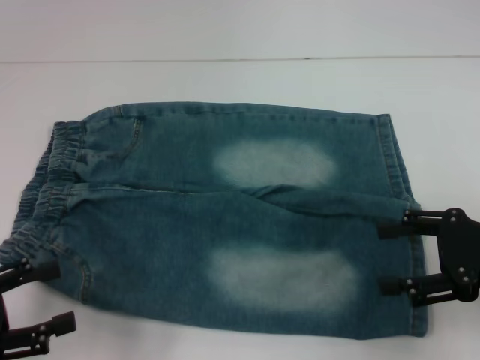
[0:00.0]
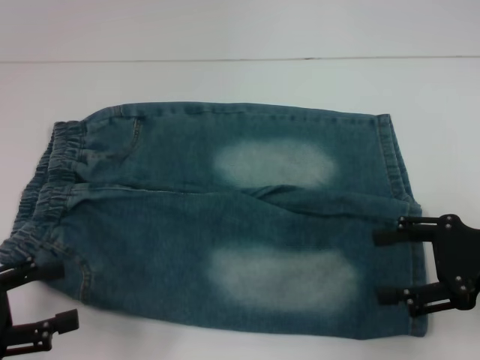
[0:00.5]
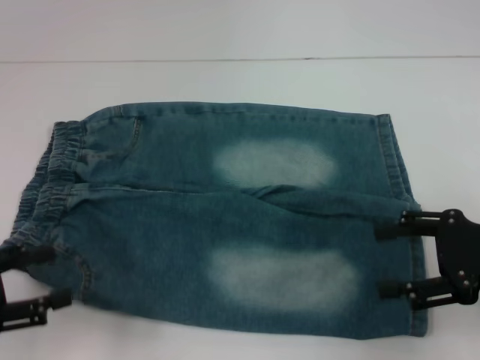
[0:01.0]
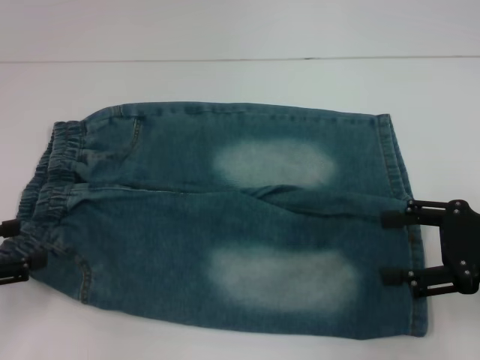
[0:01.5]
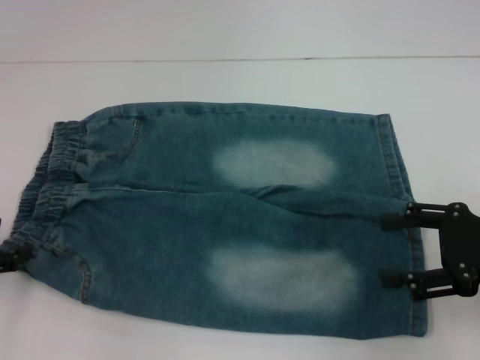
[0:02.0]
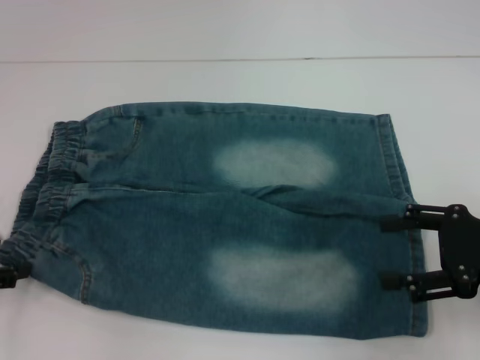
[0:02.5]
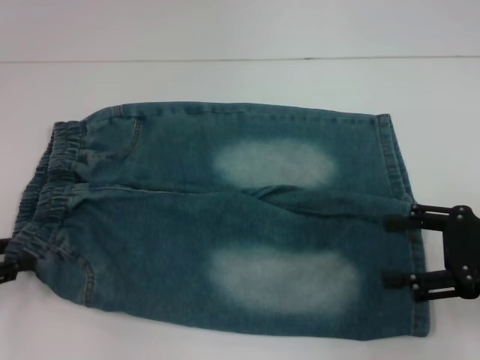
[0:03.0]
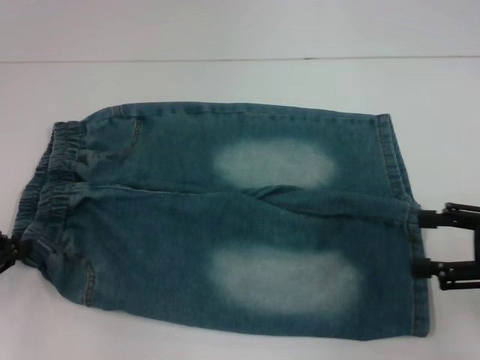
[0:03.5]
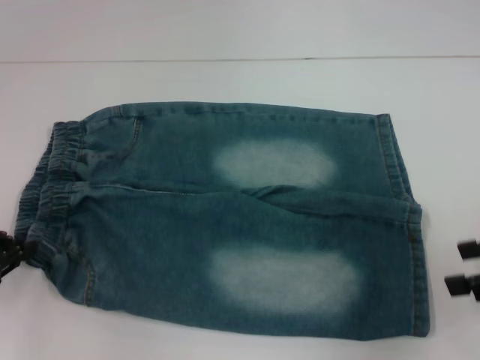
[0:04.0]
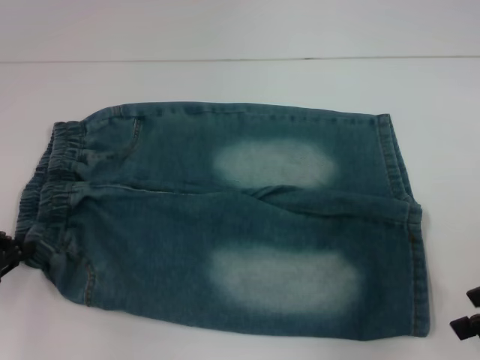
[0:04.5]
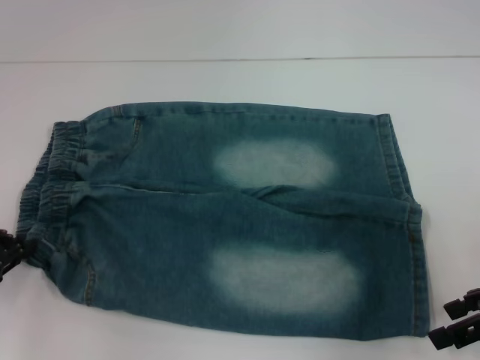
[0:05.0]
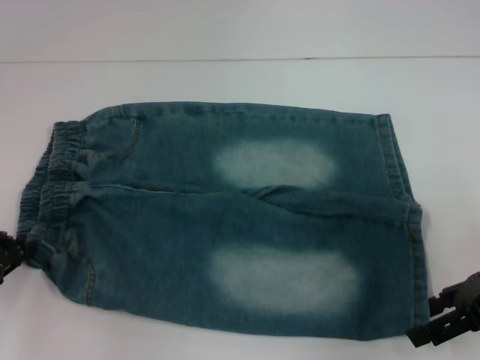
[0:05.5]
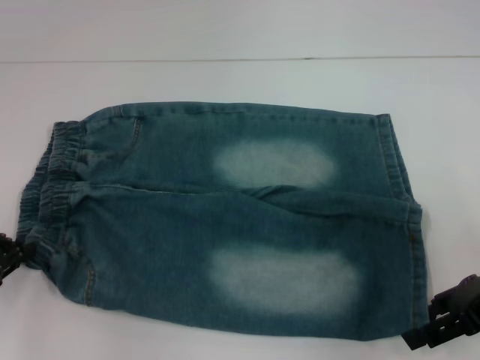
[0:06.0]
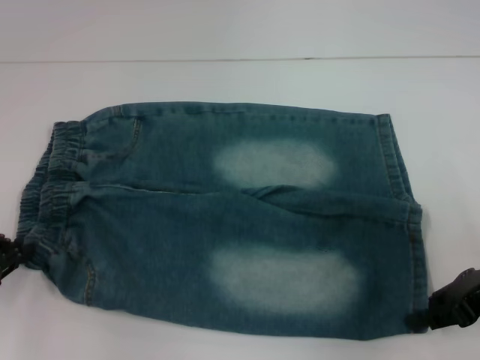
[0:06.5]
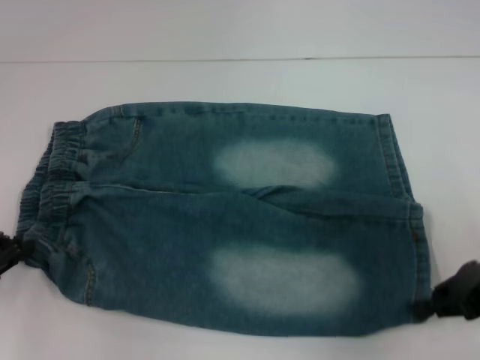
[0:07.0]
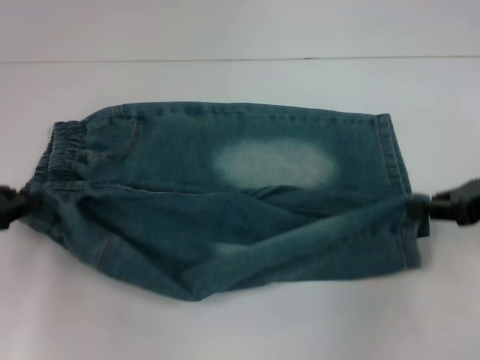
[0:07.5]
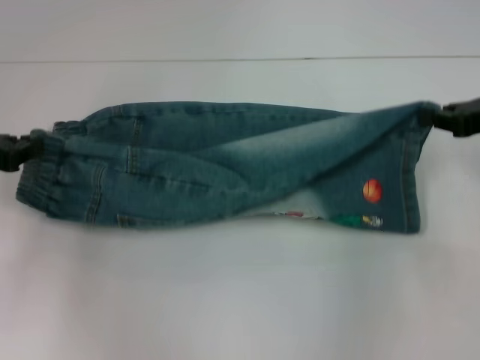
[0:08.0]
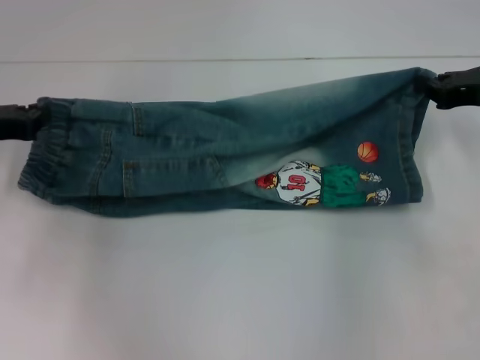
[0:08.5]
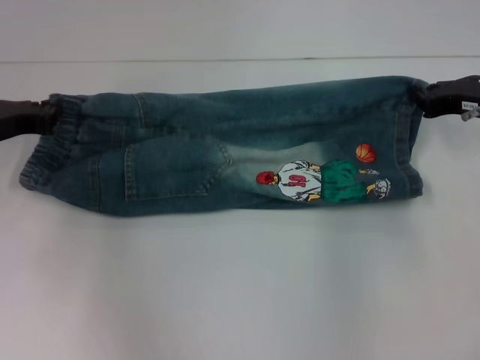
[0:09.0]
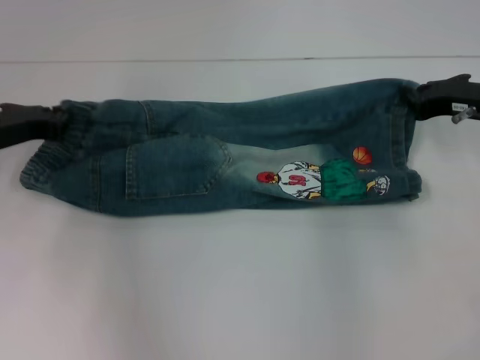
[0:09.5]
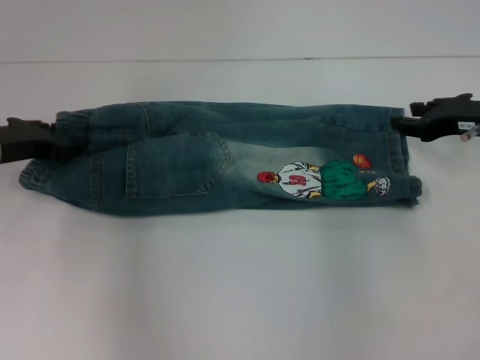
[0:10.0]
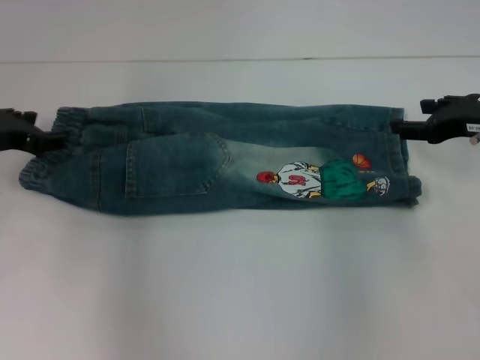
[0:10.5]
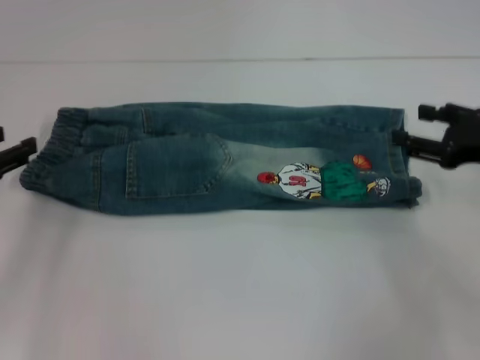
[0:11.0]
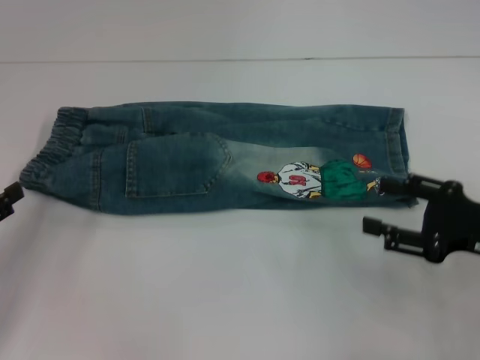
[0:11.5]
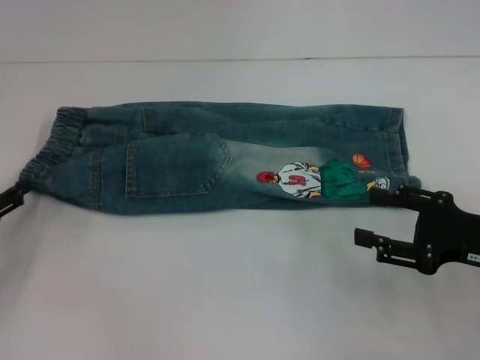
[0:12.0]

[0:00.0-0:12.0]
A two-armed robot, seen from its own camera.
Step, 0:00.0 to 0:03.5: Hold the lower left waistband with your left hand.
Step, 0:04.0 to 0:06.5: Grab the lower right pant leg with your right hand.
Step, 0:07.0 to 0:09.5: Fold upward with your right hand.
0:00.0 to 0:02.0: The left gripper travels forward by roughly 5 cm.
0:02.0 to 0:04.0: The left gripper closes. Meanwhile the right gripper changes place by roughly 5 cm.
0:04.0 to 0:06.0: The right gripper changes place by about 5 cm.
0:06.0 to 0:08.0: The right gripper travels forward by approximately 10 cm, and closes, while the left gripper moves forward and upward, about 10 cm.
0:08.0 to 0:10.0: The left gripper ends up roughly 5 cm from where it was, while the right gripper shifts by approximately 5 cm.
0:10.0 to 0:12.0: The right gripper travels backward by about 15 cm, and opens its fingers; the left gripper heads backward, to the left and downward, covering about 15 cm, and opens.

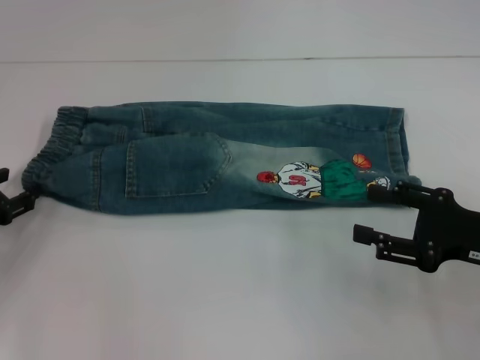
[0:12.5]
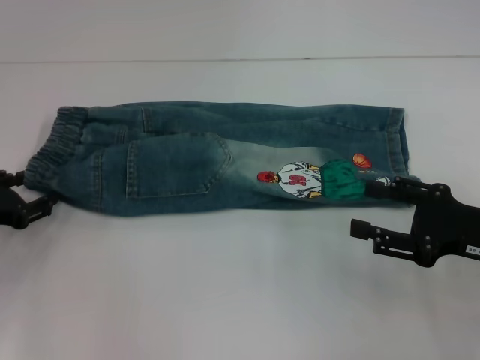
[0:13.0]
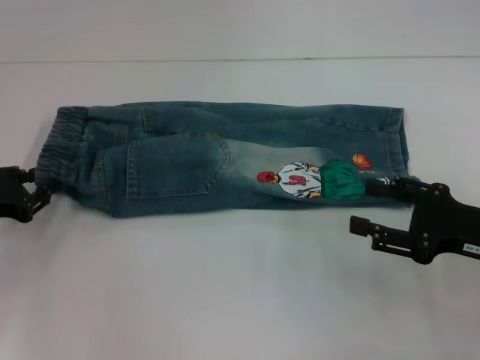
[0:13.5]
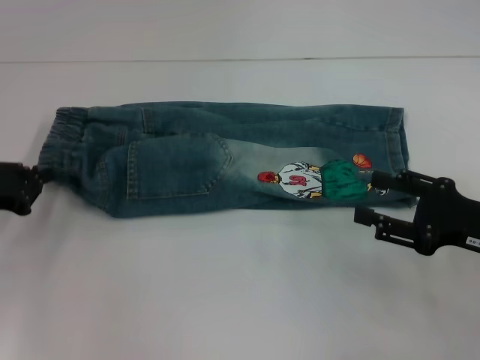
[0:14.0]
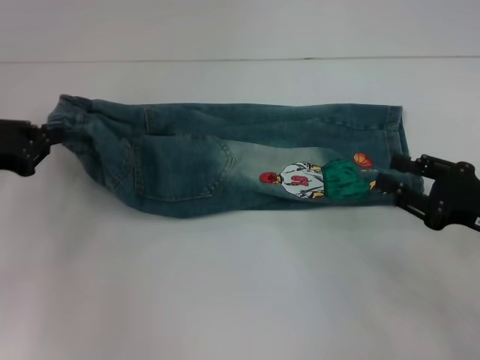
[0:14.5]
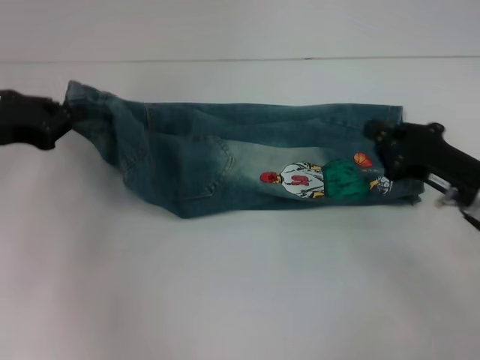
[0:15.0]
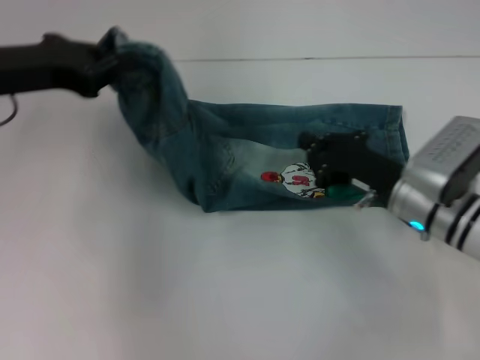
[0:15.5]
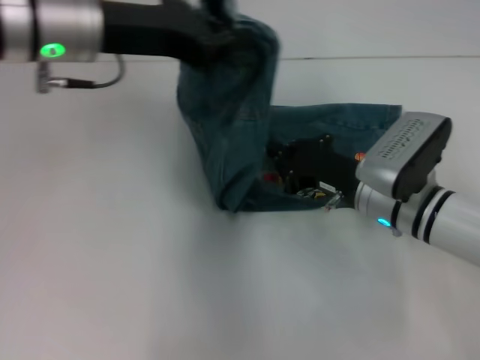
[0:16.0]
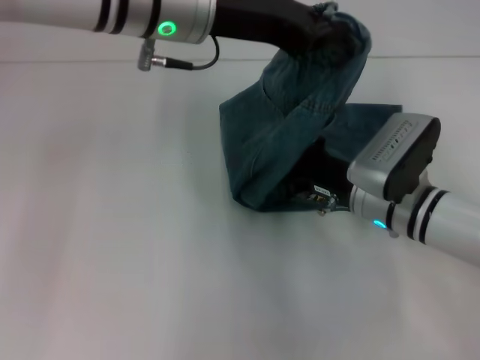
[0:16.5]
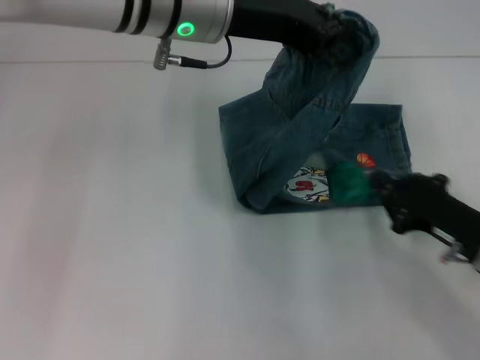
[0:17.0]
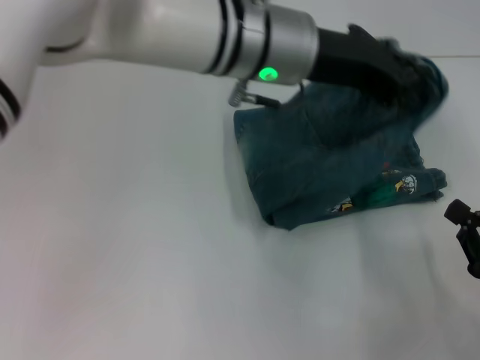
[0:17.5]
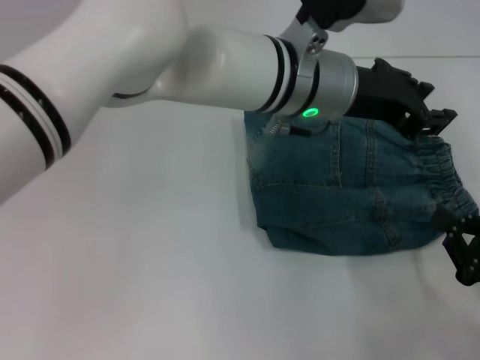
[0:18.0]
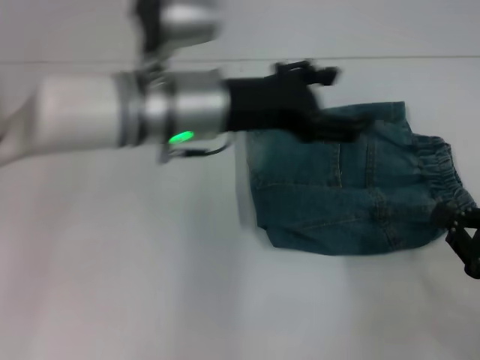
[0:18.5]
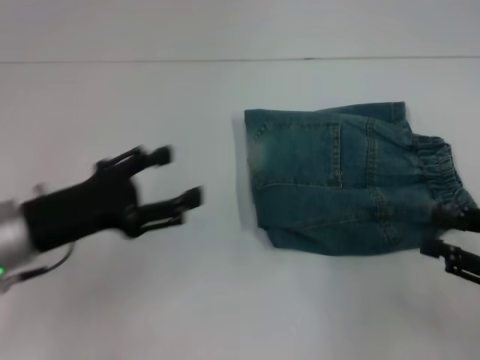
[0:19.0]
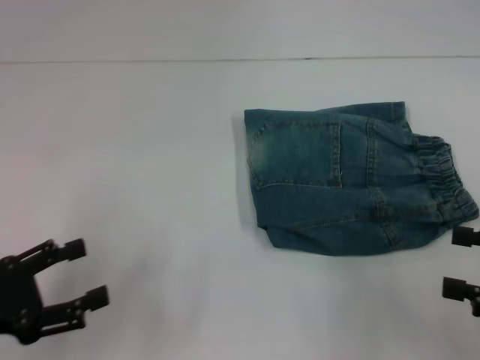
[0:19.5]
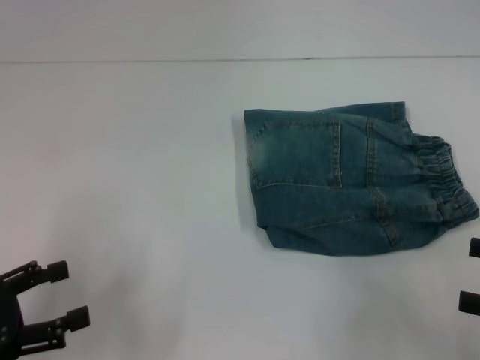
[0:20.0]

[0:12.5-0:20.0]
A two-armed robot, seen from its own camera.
Step, 0:14.5 to 0:16.0: Press the middle of the pants with your right hand.
Step, 0:17.0 to 0:17.5: Fold to the right with your left hand.
0:12.5 to 0:14.5: The left gripper moves upward, about 10 cm, and closes its fingers.
0:14.5 to 0:16.5: The right gripper moves to the left and forward, approximately 15 cm, and closes. The left gripper goes about 25 cm to the right and upward.
0:16.5 to 0:18.0: The right gripper heads to the right and backward, covering about 20 cm, while the left gripper goes some 15 cm to the right and downward.
0:18.0 to 0:20.0: The left gripper travels to the left and backward by about 40 cm, and opens its fingers. The right gripper heads upward, covering about 10 cm, and opens its fingers.

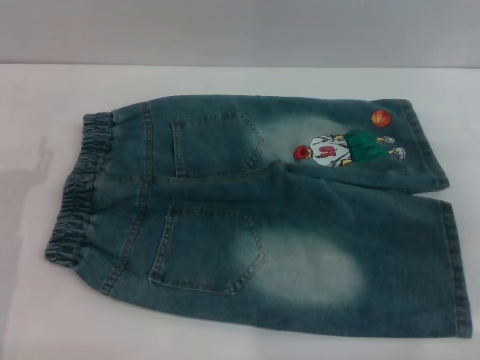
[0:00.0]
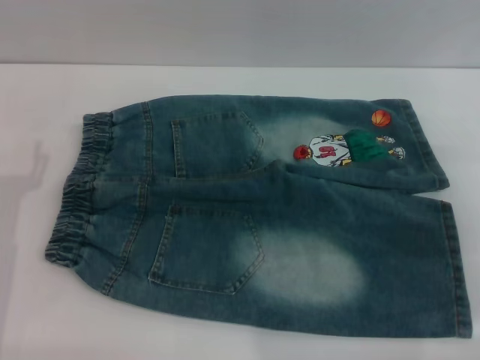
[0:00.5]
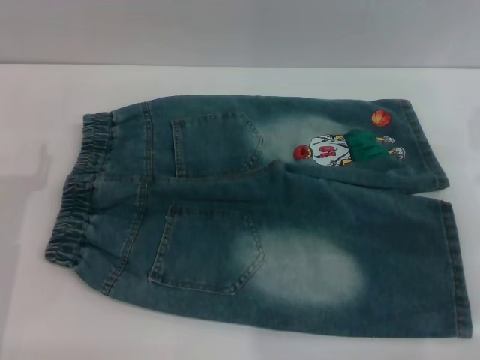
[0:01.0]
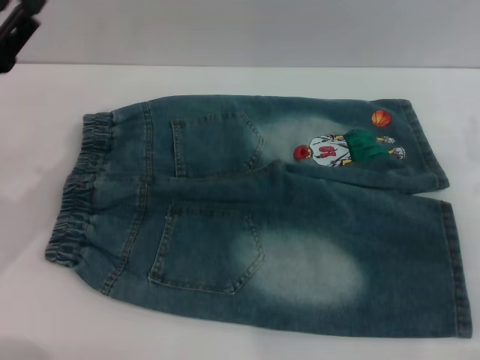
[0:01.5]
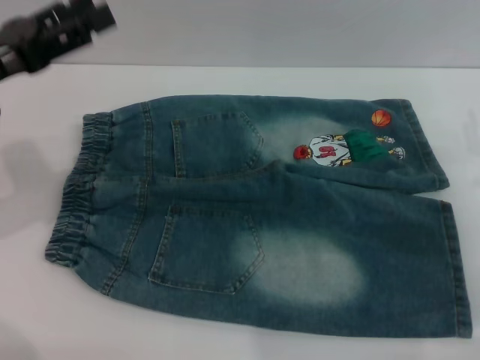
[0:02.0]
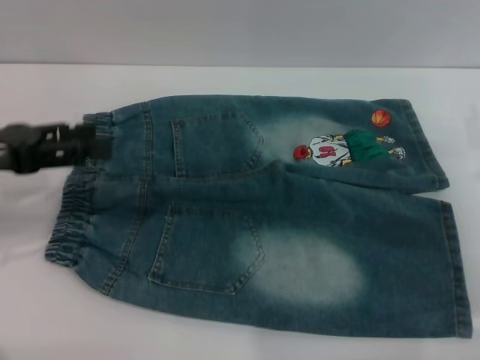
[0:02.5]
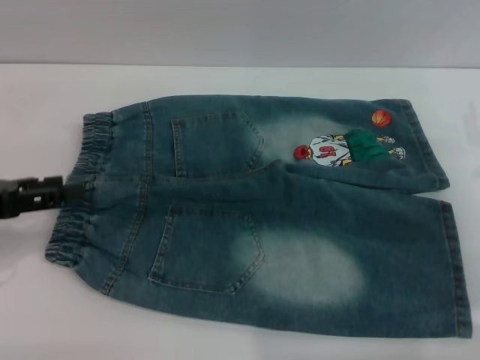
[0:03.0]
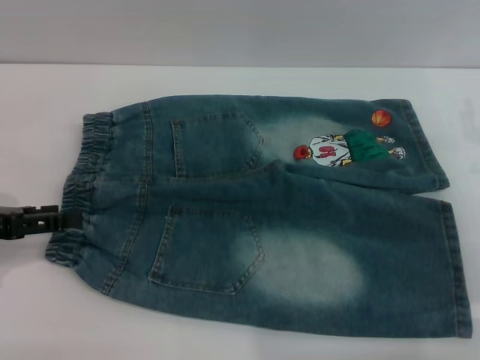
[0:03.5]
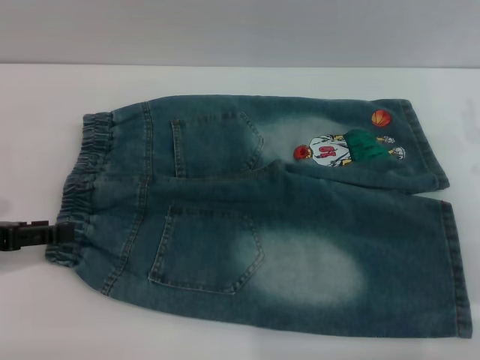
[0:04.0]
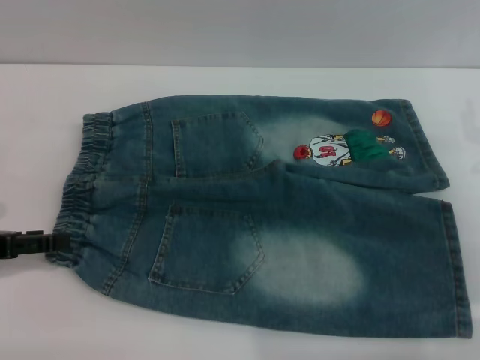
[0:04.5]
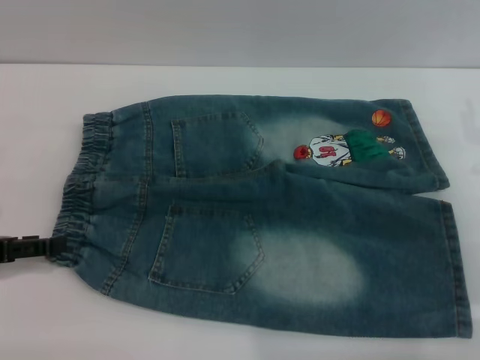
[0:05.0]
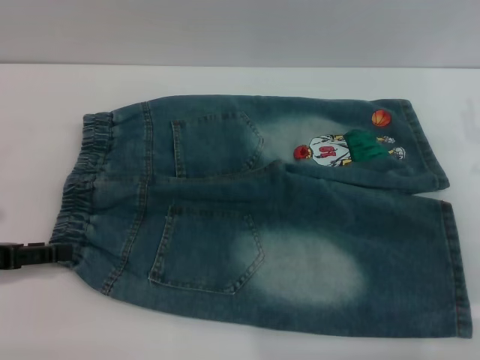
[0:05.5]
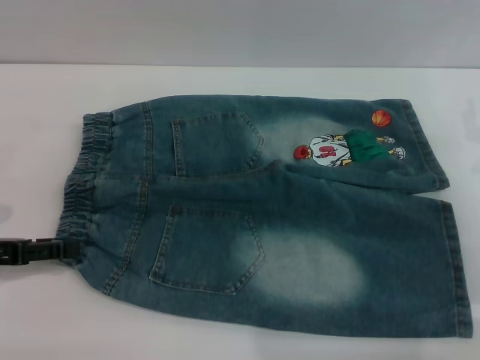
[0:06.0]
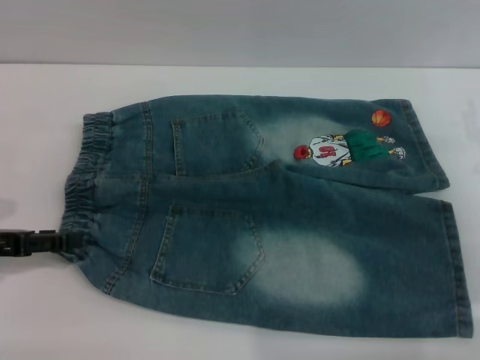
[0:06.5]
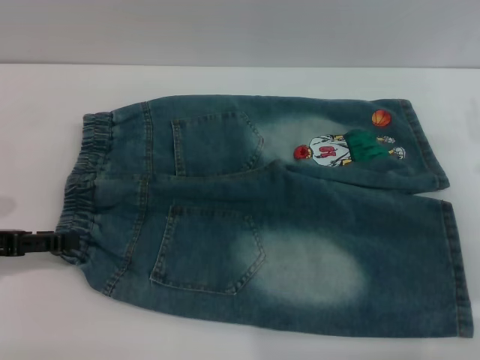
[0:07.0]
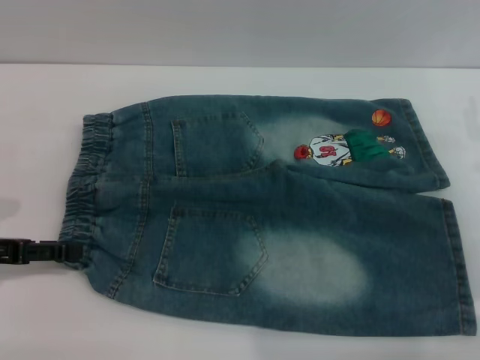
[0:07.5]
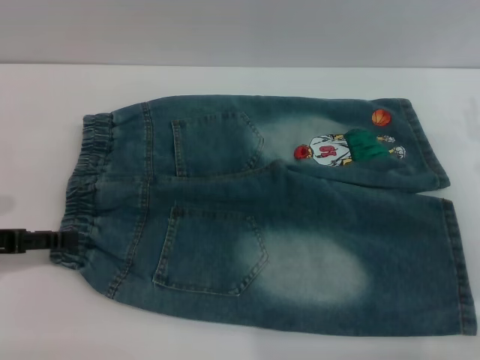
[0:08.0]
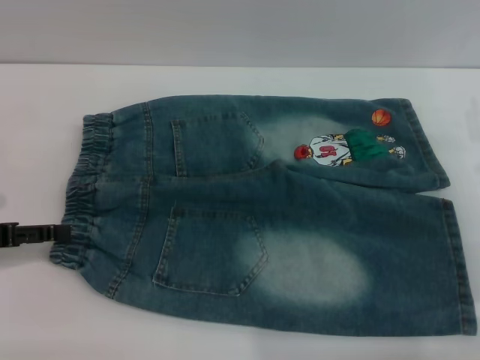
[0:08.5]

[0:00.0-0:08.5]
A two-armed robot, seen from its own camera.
0:00.0 to 0:02.0: The left gripper travels upward and forward by some 15 cm.
0:02.0 to 0:04.0: The left gripper moves downward, to the left and backward, some 10 cm.
0:04.0 to 0:08.5: The grippers stay close to where they were, moving slightly.
